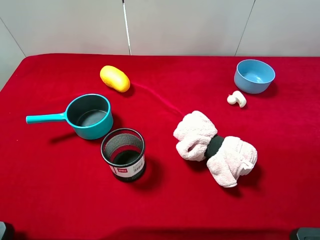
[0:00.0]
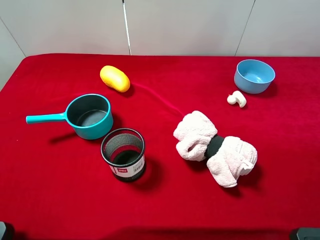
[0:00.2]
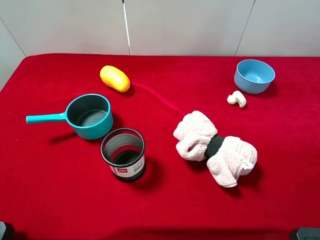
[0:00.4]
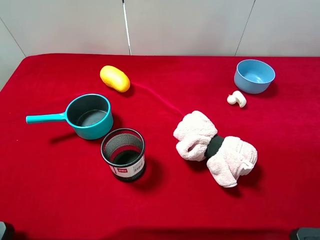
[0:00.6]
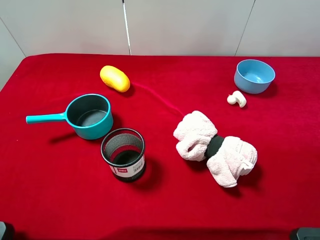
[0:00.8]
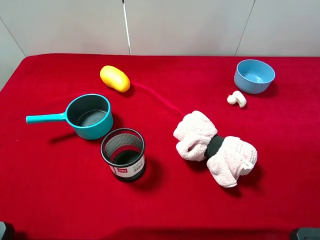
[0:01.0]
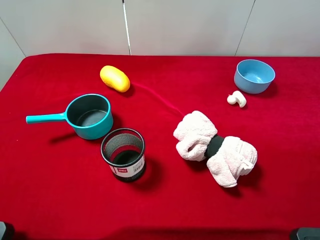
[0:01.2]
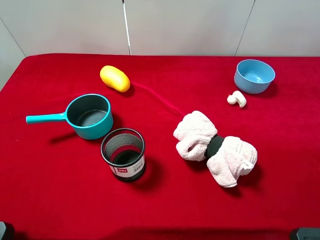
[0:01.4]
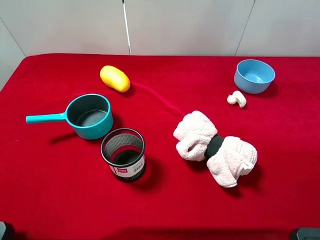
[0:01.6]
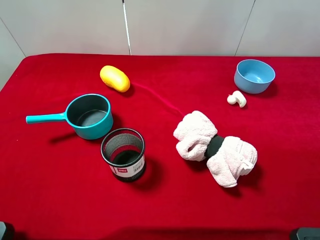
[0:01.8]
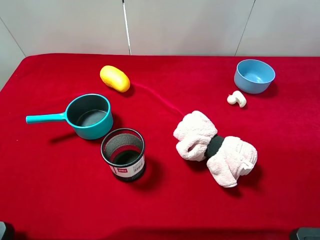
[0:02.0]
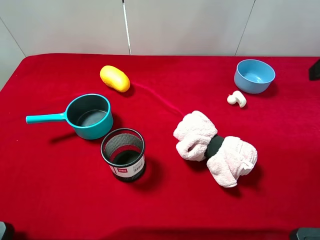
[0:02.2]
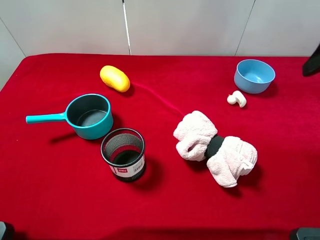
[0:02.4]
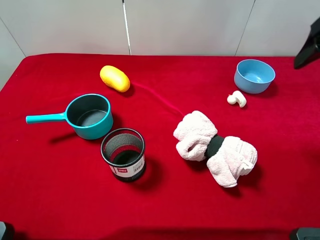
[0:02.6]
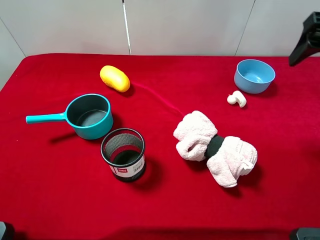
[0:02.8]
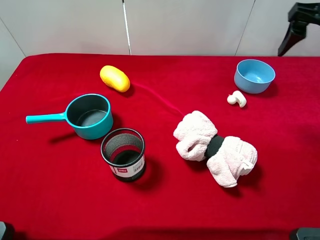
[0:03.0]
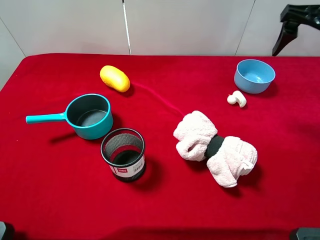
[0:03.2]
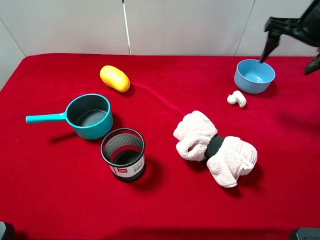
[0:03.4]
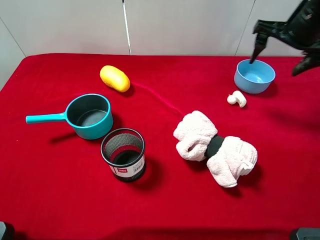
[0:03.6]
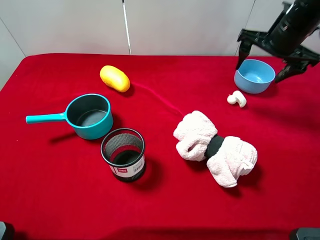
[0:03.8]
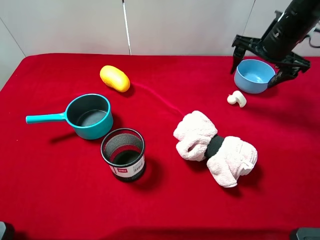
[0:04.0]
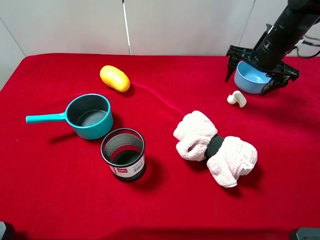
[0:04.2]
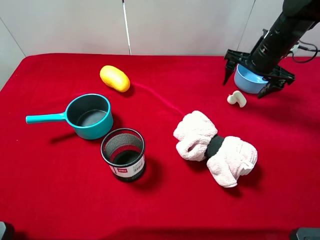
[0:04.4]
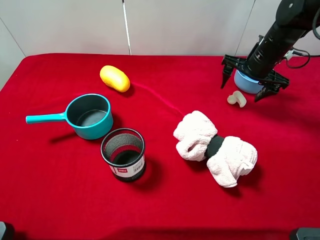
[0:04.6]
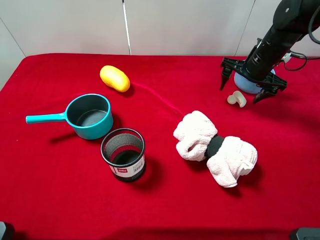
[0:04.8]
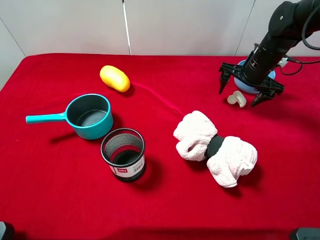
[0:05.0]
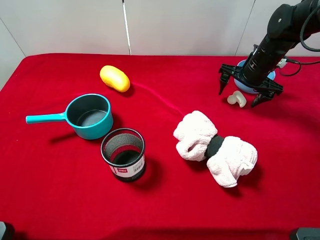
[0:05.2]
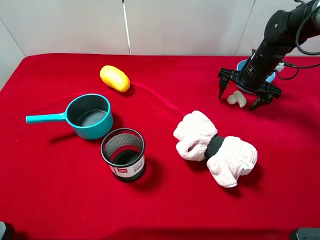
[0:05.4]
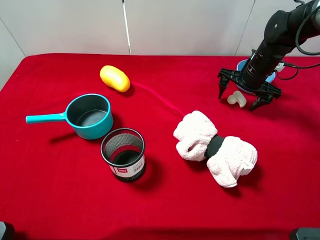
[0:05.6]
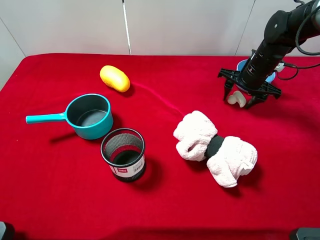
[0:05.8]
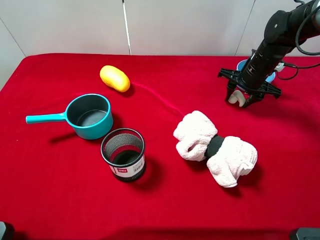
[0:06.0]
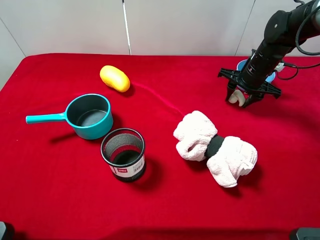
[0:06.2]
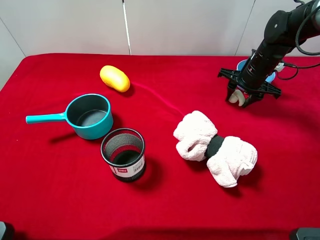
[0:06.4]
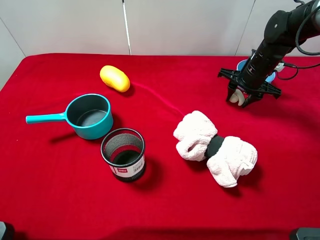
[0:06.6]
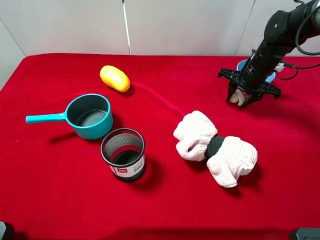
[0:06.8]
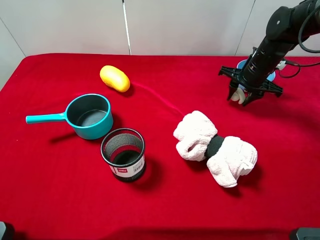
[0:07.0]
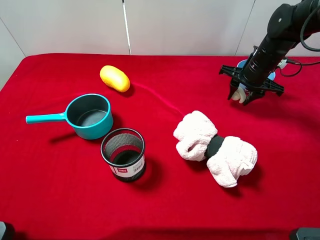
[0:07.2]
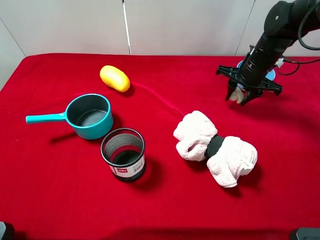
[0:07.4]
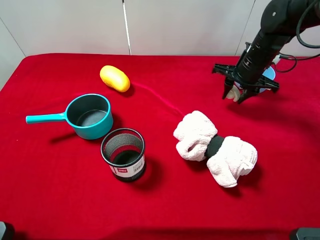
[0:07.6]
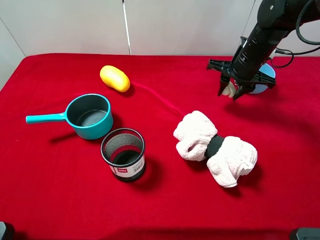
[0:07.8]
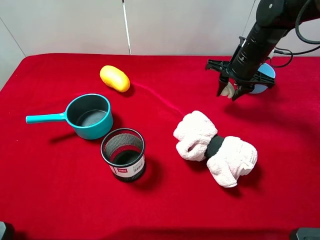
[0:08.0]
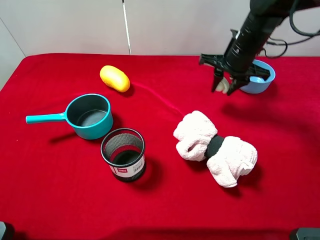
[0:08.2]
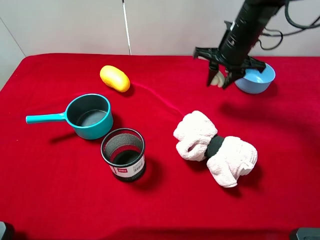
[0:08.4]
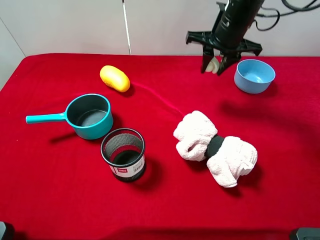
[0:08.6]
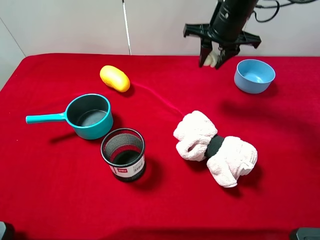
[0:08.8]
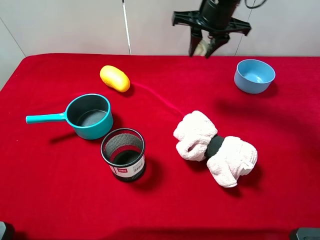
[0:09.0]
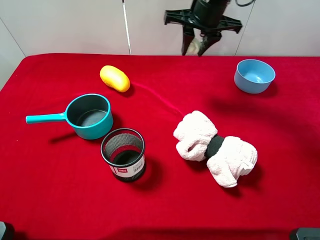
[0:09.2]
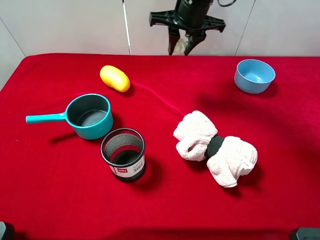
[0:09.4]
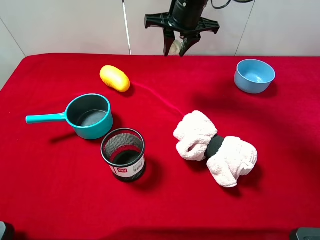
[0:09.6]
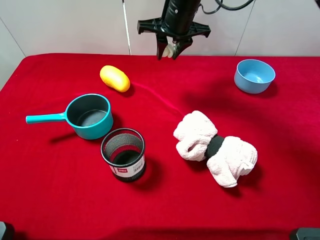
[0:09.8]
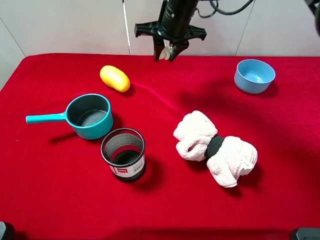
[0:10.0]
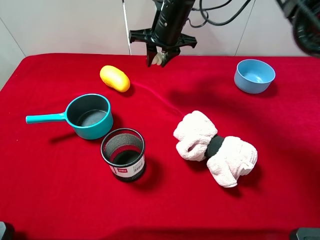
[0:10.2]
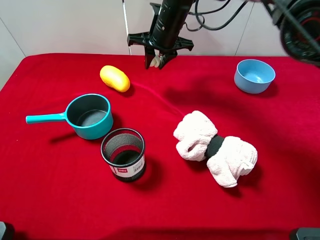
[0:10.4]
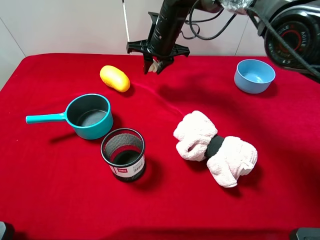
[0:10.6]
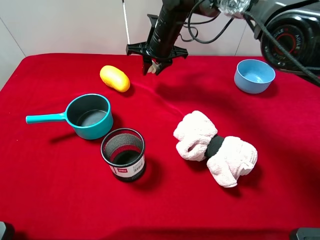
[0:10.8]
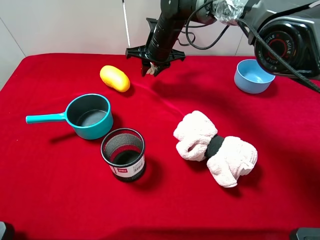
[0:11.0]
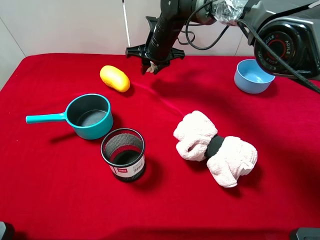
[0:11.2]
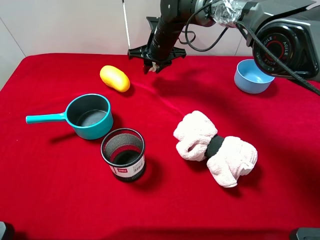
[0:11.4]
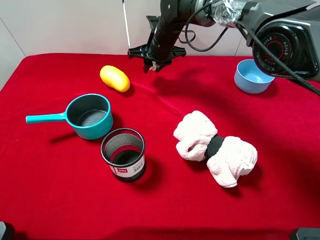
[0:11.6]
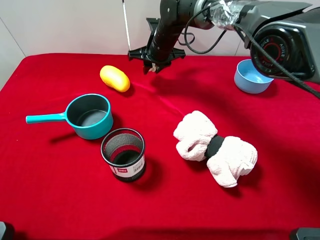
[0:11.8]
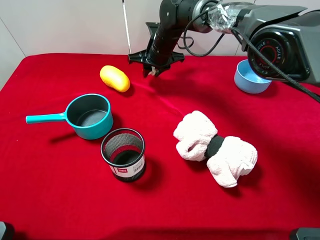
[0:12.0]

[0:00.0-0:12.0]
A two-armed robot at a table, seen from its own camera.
Task of the whole recording: the gripper move the object.
Step, 0:00.0 to 0:06.4: Grasp the white duck with the right gripper.
0:01.6 to 0:03.0: The right gripper moves forward, roughly 20 cm.
0:03.0 to 0:04.4: The right gripper shifts roughly 15 cm downward and forward.
0:04.4 to 0:06.0: The right gripper shifts roughly 5 cm downward, and closes.
0:06.0 to 0:07.6: The grippers stay close to where they were, moving slightly.
0:07.6 to 0:09.0: The right gripper goes about 15 cm upward and to the left.
0:09.0 to 0:10.4: The right gripper goes about 10 cm to the left and downward.
0:10.4 to 0:12.0: The right gripper goes about 5 cm downward.

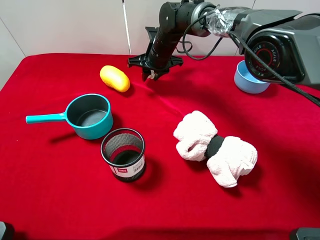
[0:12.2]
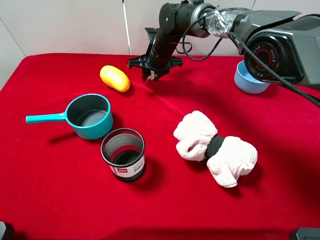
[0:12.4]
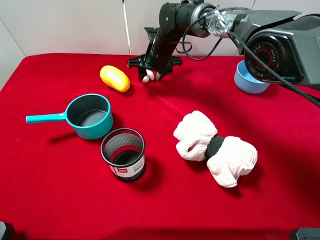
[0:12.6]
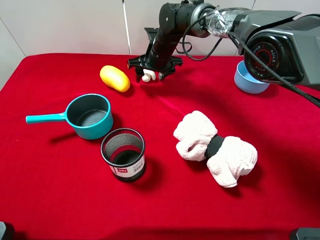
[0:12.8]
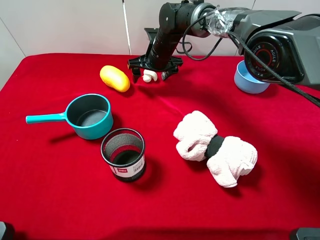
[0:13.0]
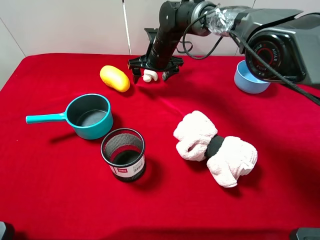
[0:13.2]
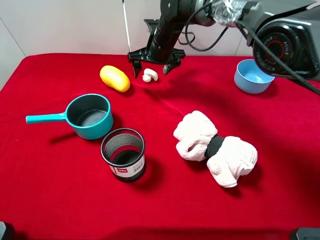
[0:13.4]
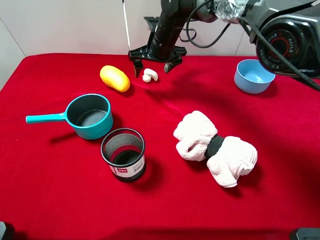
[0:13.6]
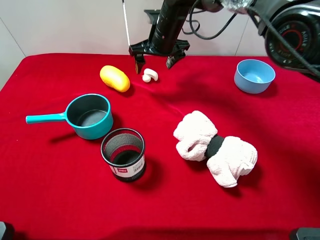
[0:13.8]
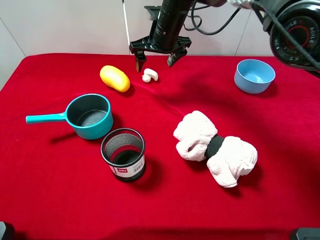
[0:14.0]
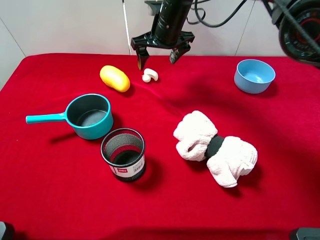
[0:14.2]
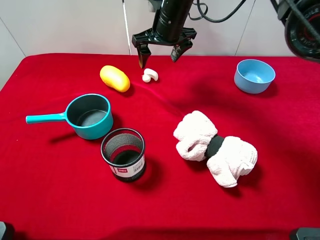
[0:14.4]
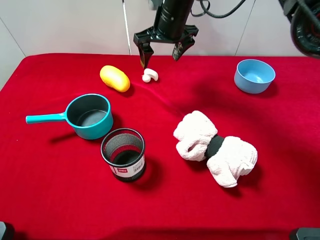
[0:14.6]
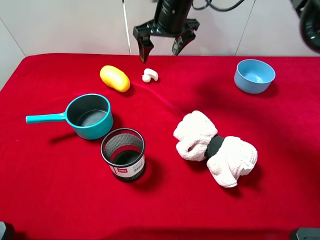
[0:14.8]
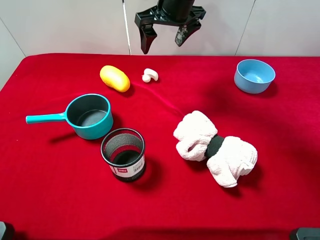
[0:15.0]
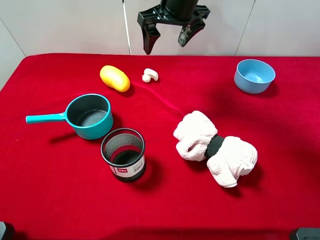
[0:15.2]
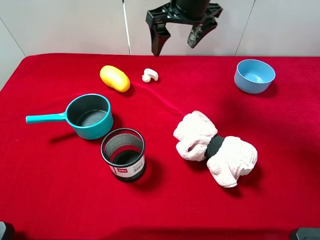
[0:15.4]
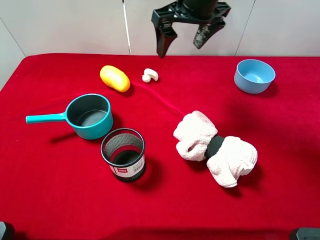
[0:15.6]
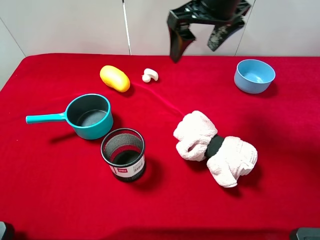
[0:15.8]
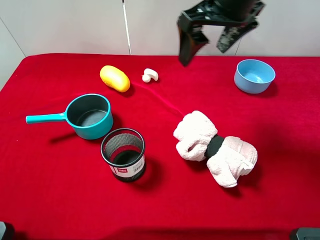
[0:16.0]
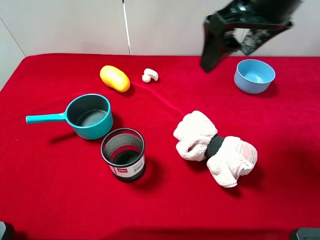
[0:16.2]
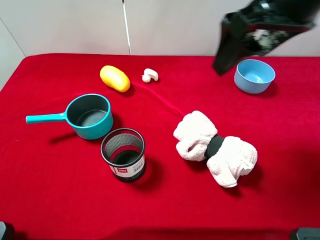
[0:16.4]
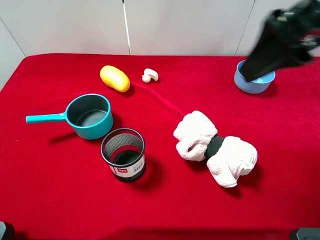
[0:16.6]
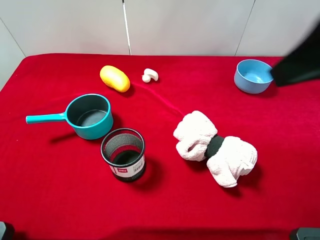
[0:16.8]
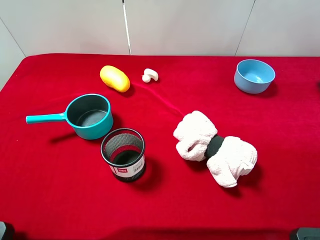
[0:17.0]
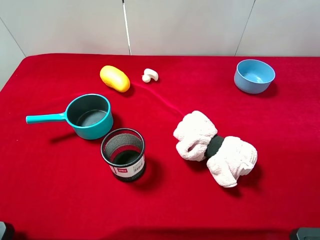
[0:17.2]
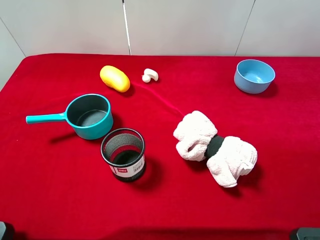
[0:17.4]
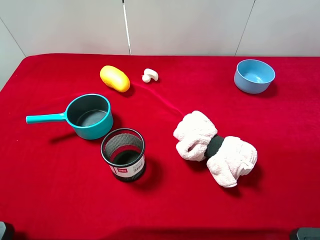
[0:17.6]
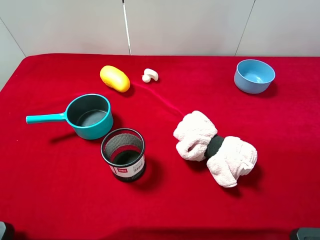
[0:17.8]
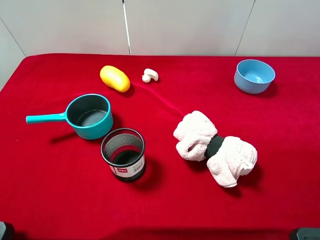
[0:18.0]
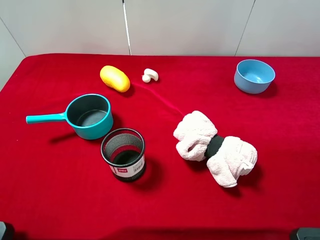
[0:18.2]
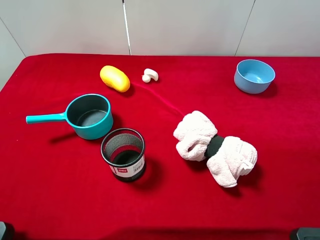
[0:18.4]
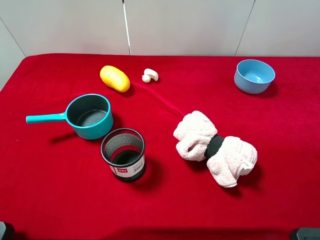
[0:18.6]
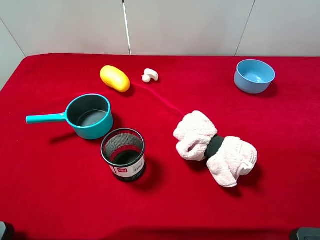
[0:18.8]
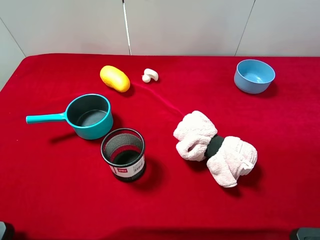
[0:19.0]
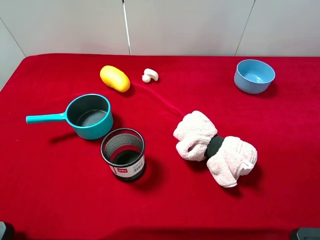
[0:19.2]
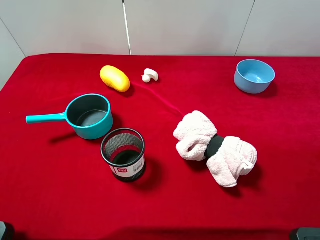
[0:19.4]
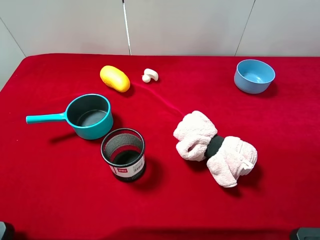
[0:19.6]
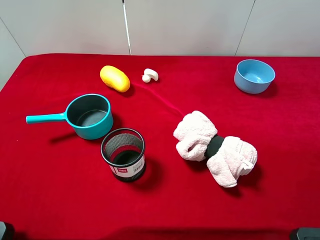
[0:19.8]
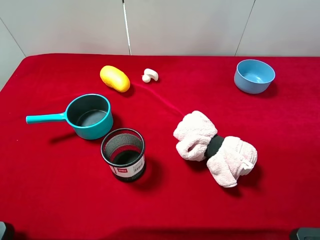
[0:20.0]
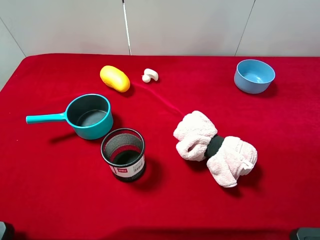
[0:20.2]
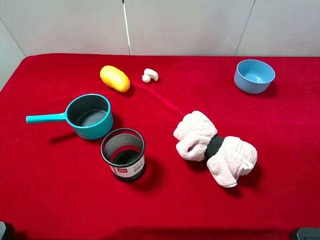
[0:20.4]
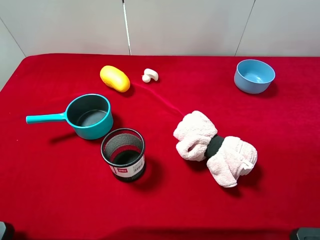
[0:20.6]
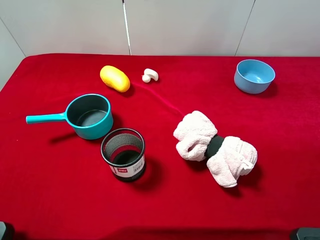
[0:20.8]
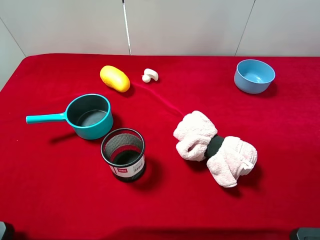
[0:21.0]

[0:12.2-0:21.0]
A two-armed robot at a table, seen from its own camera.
Task of the whole recording: the gripper move the object.
Step, 0:12.2 to 0:14.2: Place the white duck on the table with the right gripper.
0:12.2 to 0:13.6: The right gripper opens its fingers.
0:13.6 to 0:15.2: The right gripper heads upward and backward, covering some 15 cm.
0:15.2 to 0:16.6: The right gripper goes roughly 30 cm backward, to the right and upward.
0:16.6 to 0:18.0: The right gripper travels backward, to the right and downward by roughly 20 cm.
0:19.6 to 0:21.0: Both grippers stay about where they are.

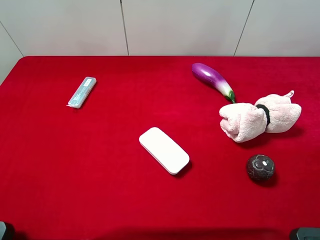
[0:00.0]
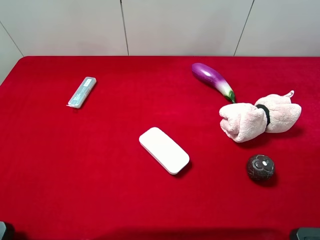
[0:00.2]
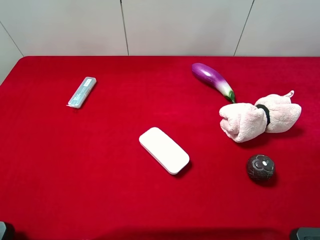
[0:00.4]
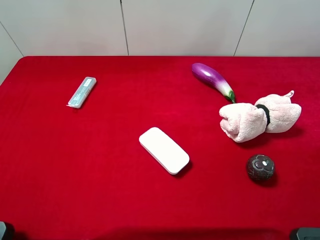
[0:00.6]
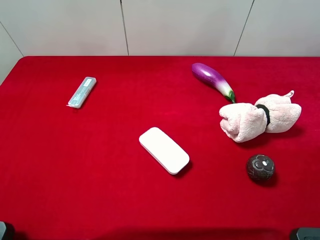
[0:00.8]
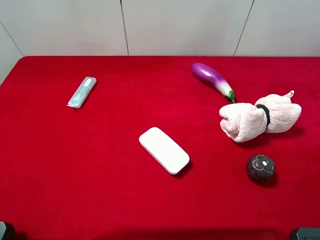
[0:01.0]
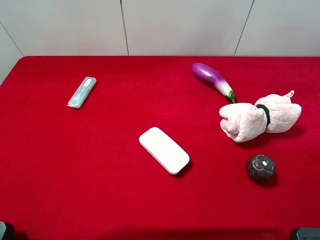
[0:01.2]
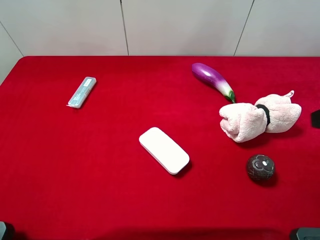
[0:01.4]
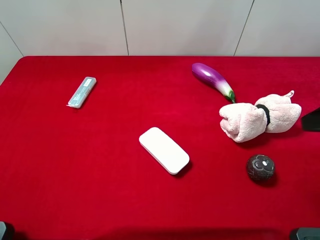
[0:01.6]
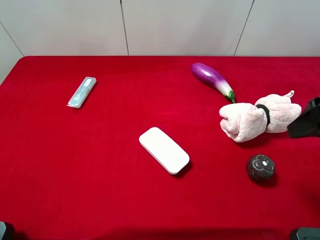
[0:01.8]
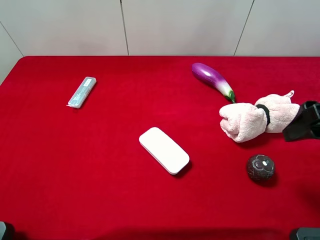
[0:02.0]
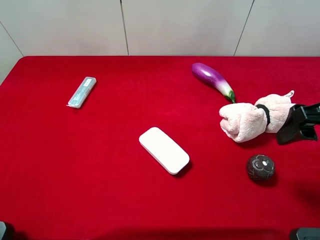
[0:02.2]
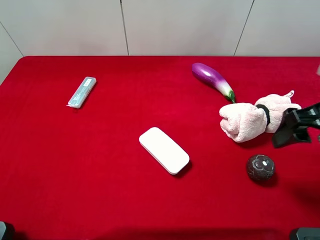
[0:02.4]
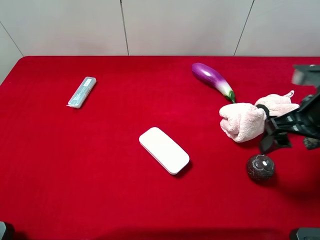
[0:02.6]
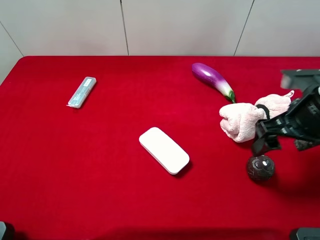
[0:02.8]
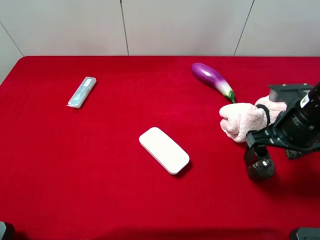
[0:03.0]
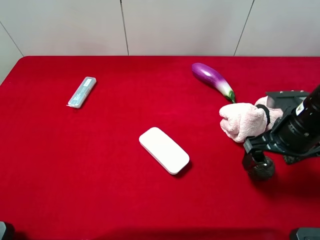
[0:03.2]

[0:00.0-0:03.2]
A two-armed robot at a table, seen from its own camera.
Task of the whole recording: the gripper move the object.
0:01.6 to 0:03.2: The right gripper heads downward and forward, covering roughly 15 cm.
